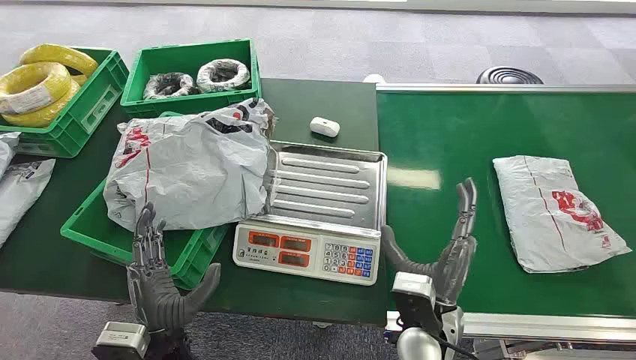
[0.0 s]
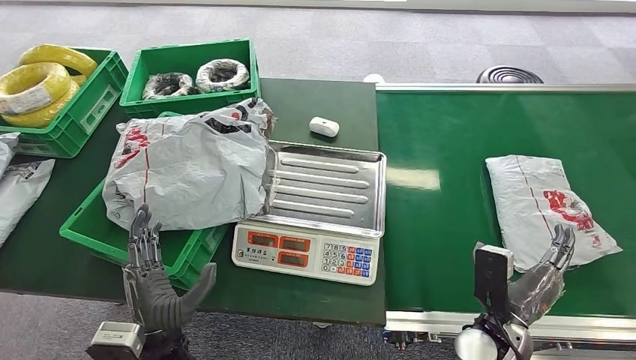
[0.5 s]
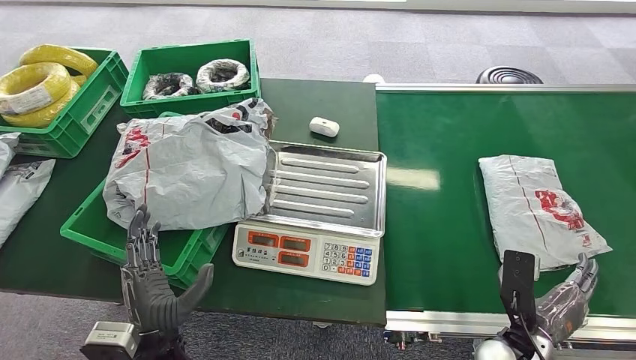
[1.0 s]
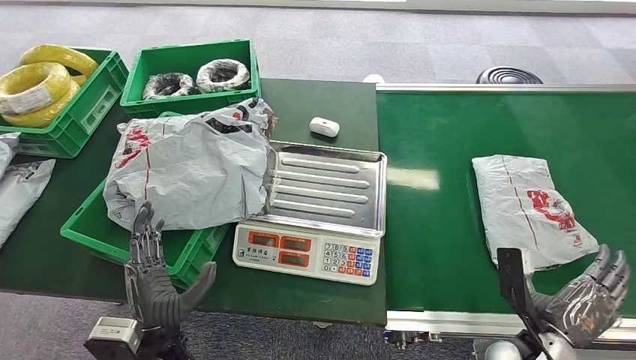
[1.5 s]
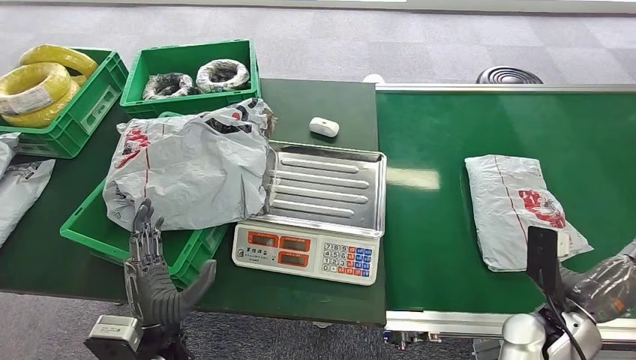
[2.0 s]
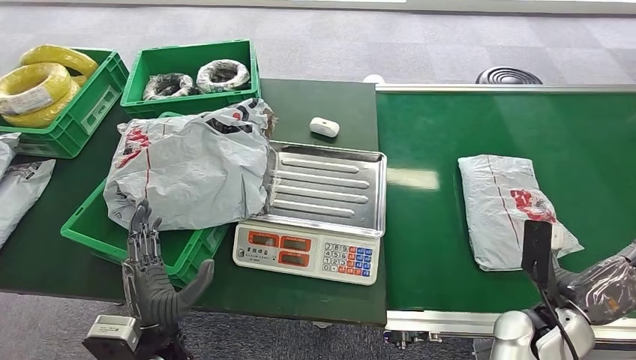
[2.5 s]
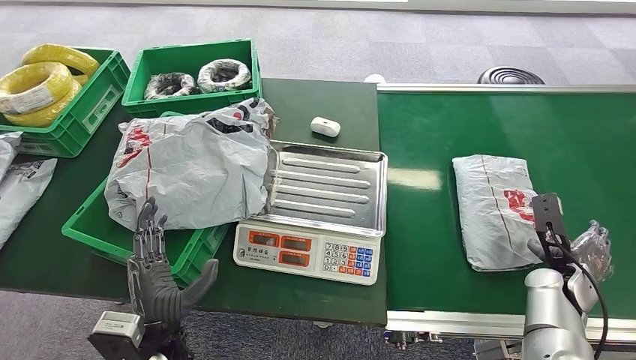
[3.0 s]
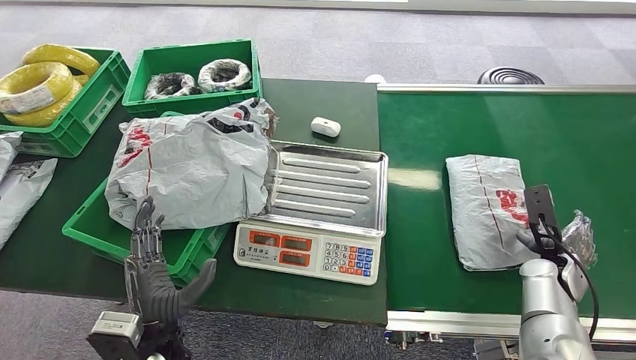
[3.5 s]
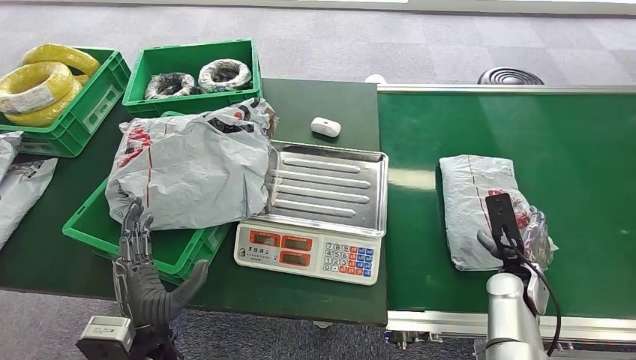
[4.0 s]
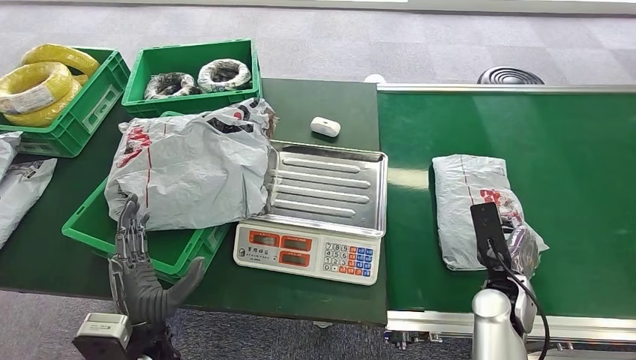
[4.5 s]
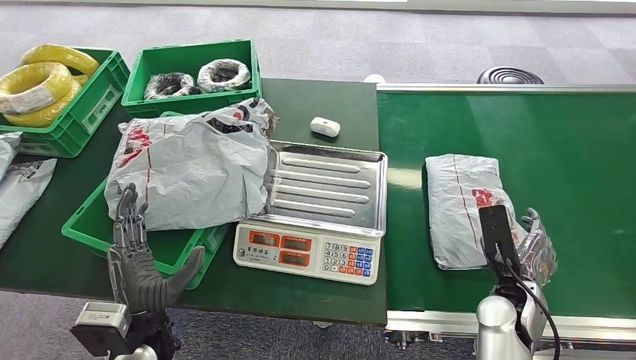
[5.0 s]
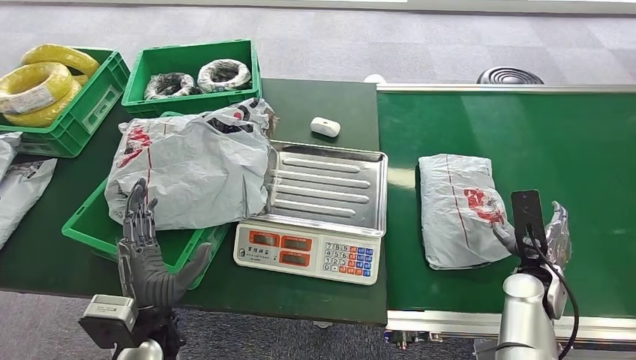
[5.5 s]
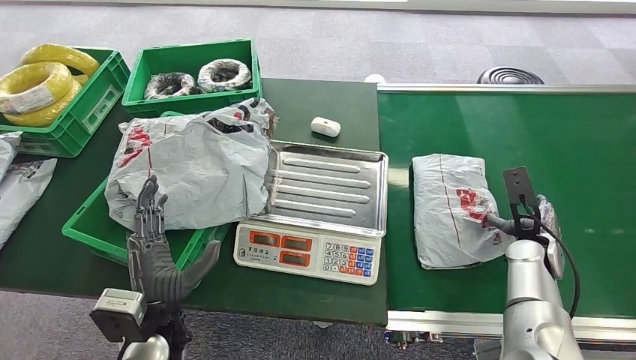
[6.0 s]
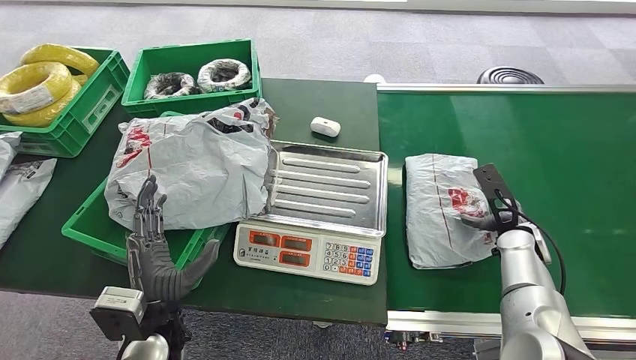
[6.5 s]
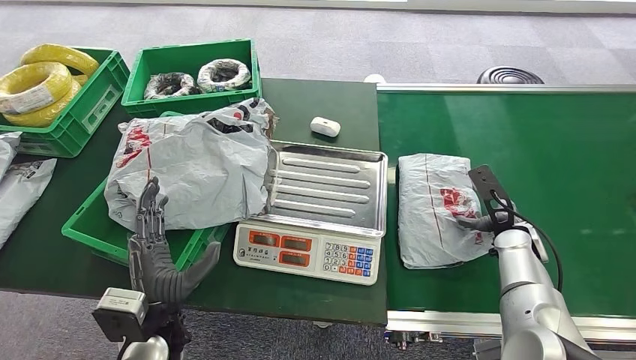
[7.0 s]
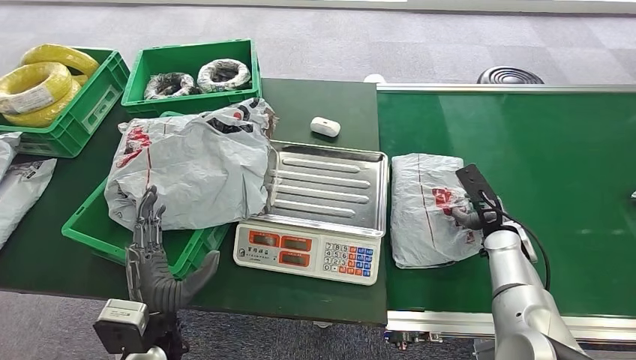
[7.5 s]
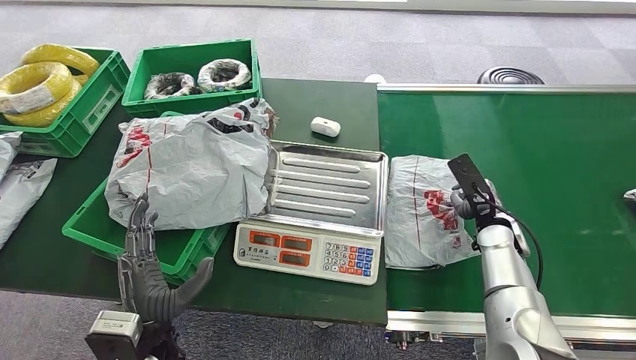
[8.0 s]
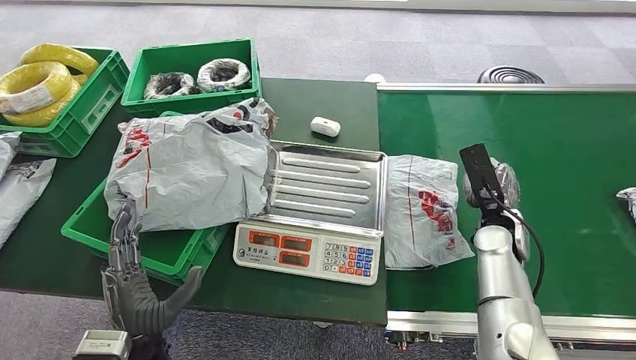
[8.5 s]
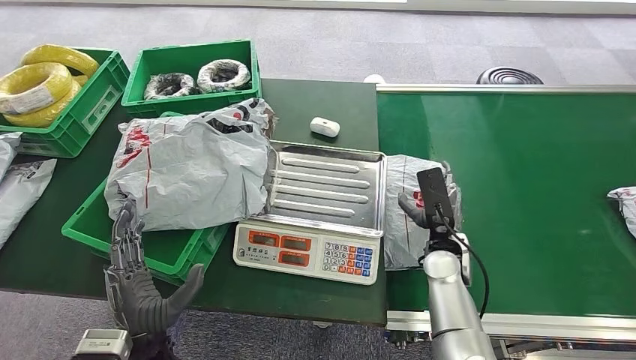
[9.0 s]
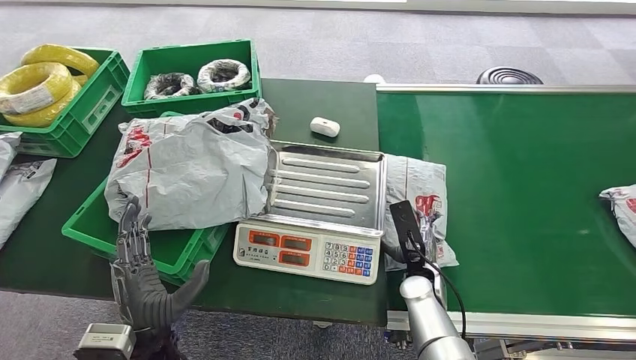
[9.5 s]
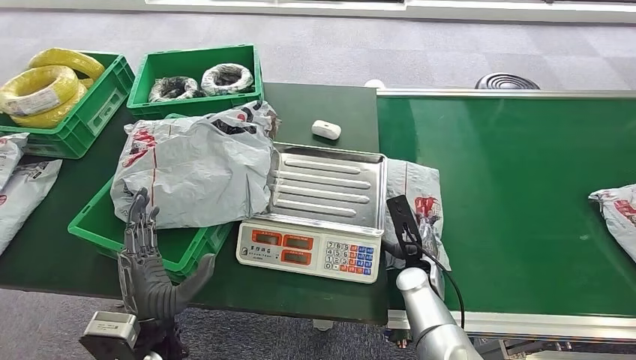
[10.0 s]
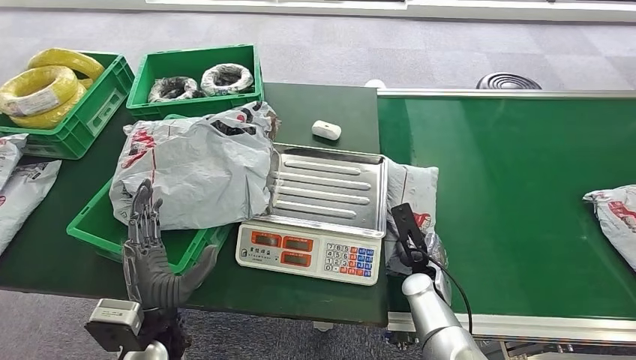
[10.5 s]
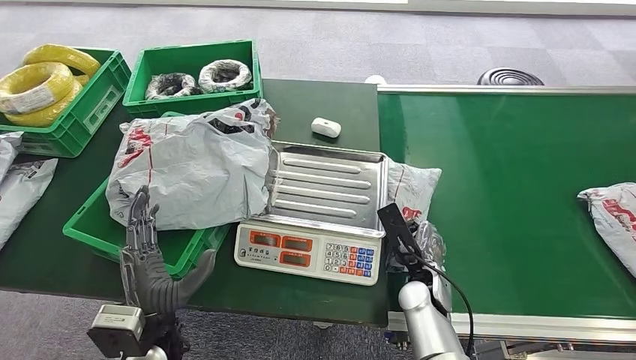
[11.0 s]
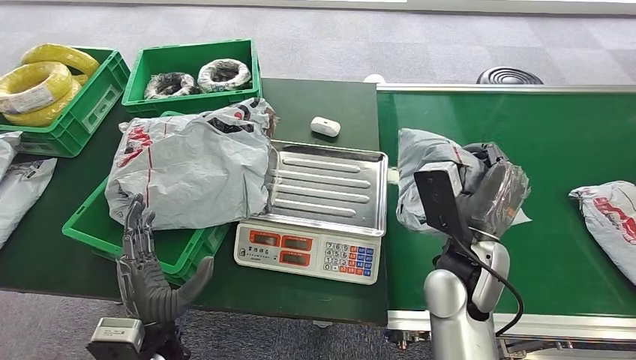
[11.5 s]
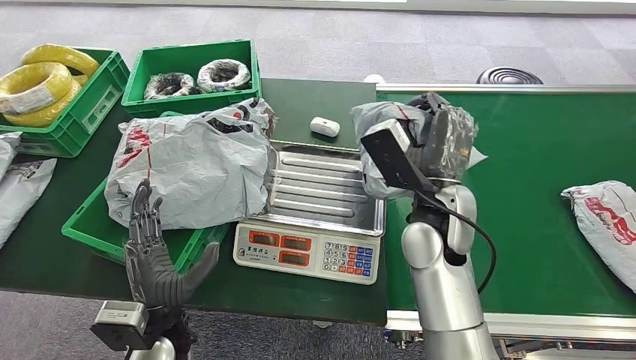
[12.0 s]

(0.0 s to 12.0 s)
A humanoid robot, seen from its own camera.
Step, 0.0 s - 11.5 s: Pick up the package from the conveyor belt.
2.0 s - 4.0 s: The right hand is displaced forward by about 10 cm, and travels to the right and back again, some 10 cm each way.
4.0 s - 6.0 s: The right hand ends up about 5 cm from where it was.
6.0 s - 8.0 s: The right hand goes approximately 5 cm to the left.

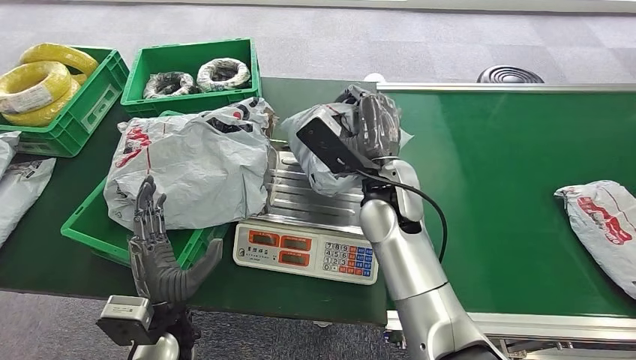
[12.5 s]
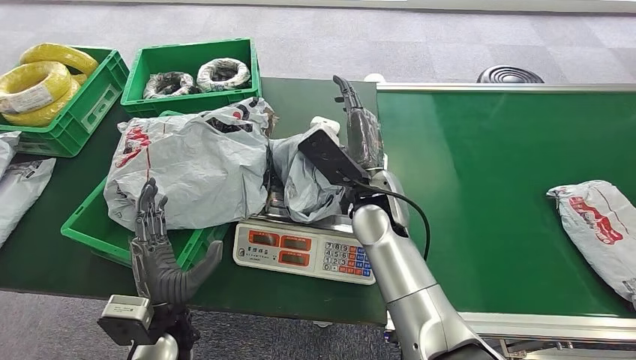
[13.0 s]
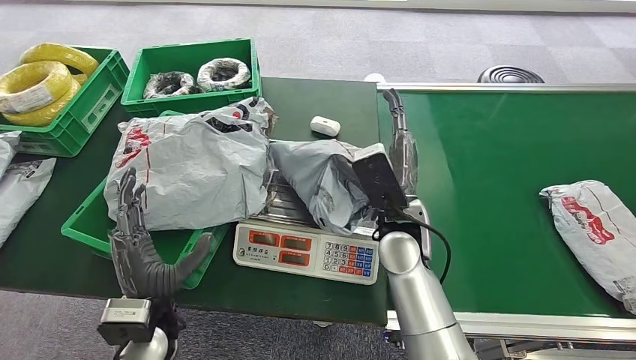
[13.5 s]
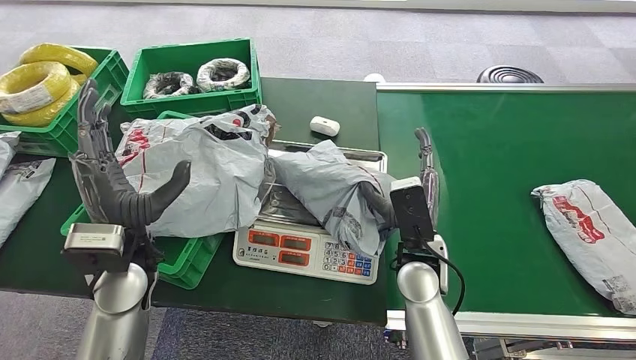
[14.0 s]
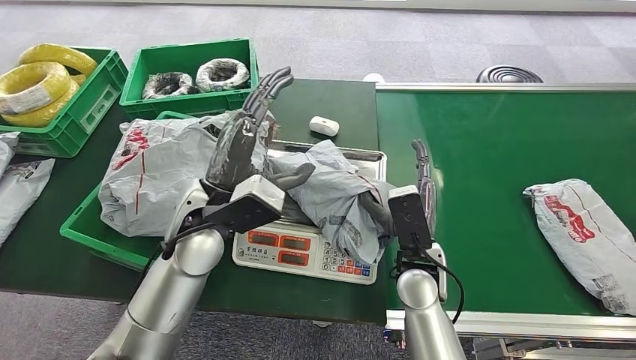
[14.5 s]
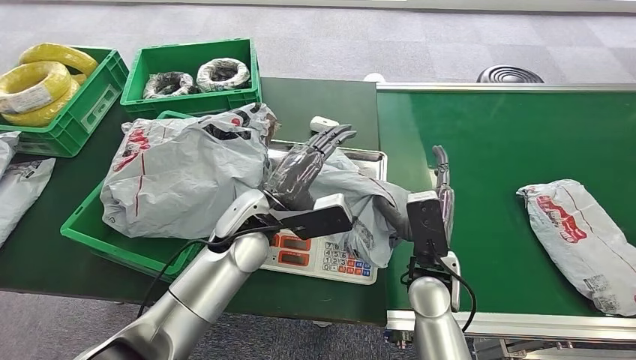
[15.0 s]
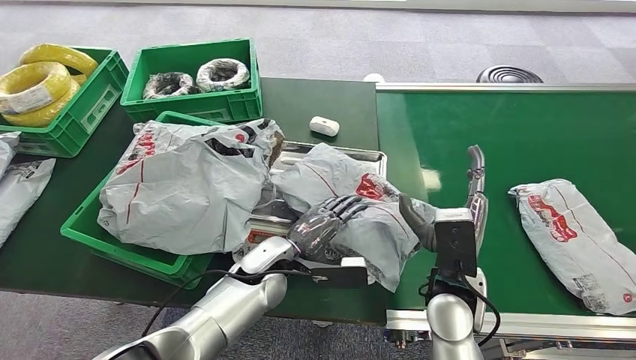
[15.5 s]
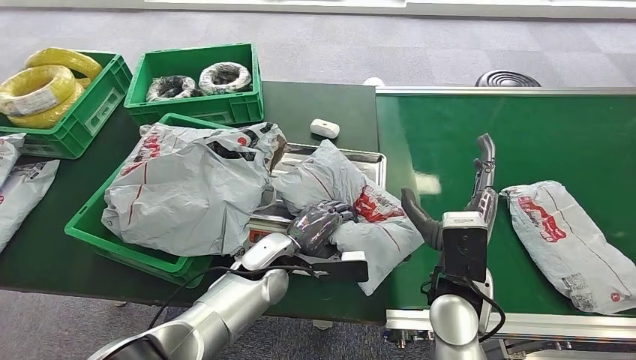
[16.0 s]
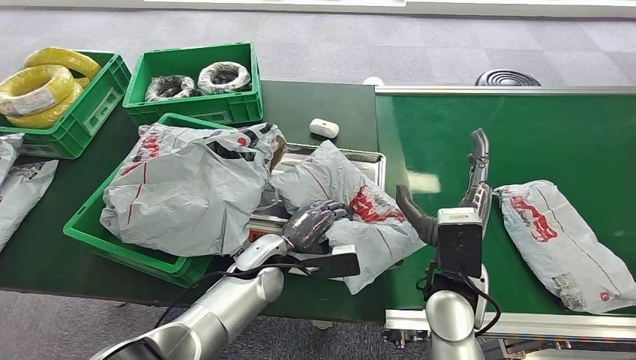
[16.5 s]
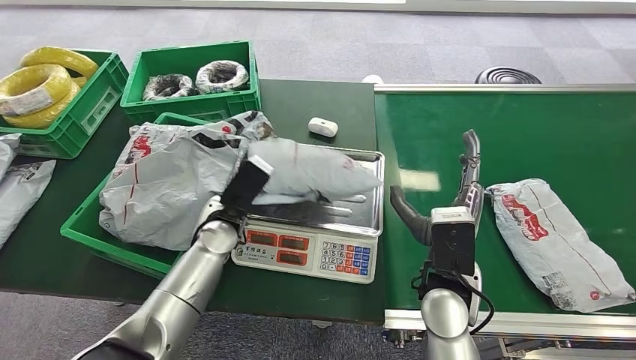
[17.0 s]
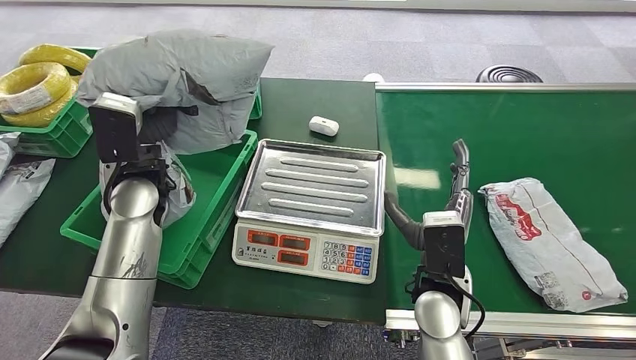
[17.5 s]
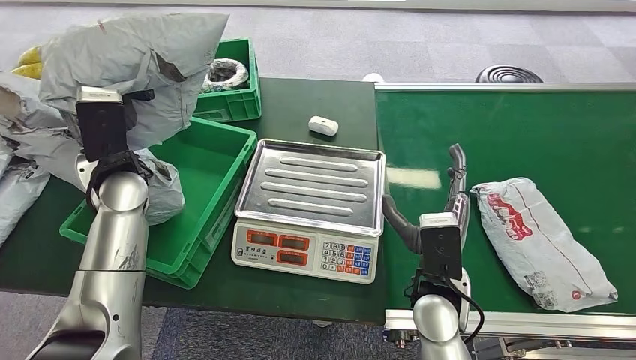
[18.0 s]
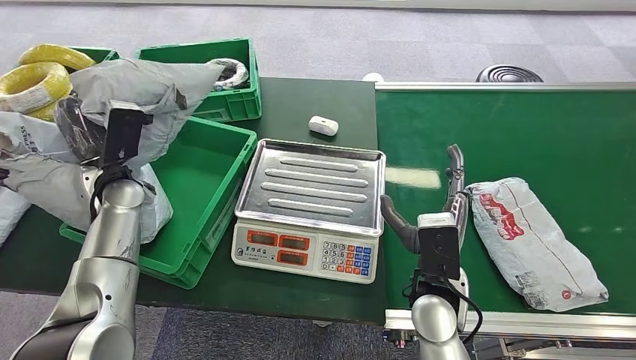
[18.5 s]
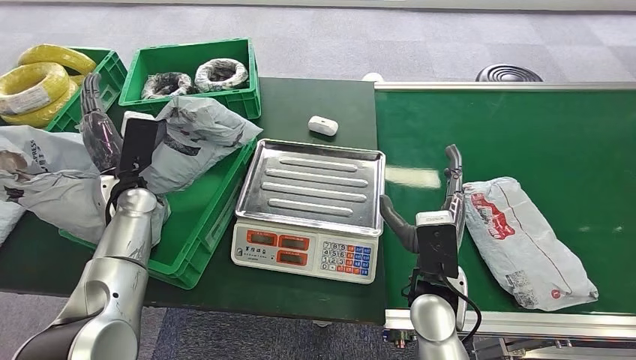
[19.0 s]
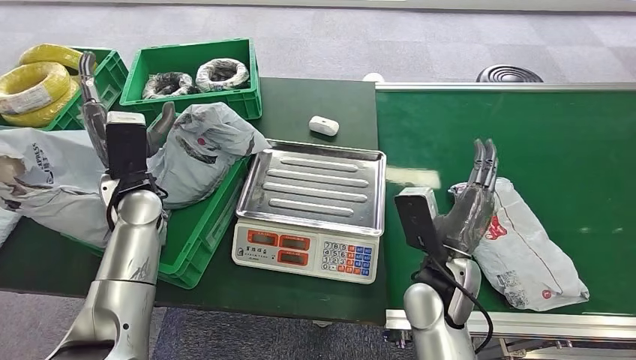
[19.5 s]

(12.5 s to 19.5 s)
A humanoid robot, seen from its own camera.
Step, 12.5 s - 14.0 s: Place the package onto the inbound machine.
Step, 14.5 s - 17.5 s: Pick up the package from the inbound machine.
Step, 18.0 s - 19.5 s: Place the package into the parcel locker.

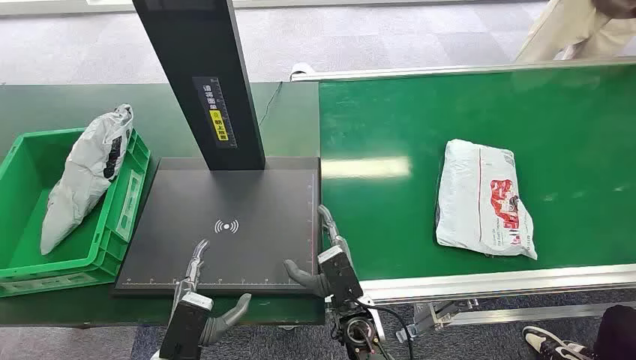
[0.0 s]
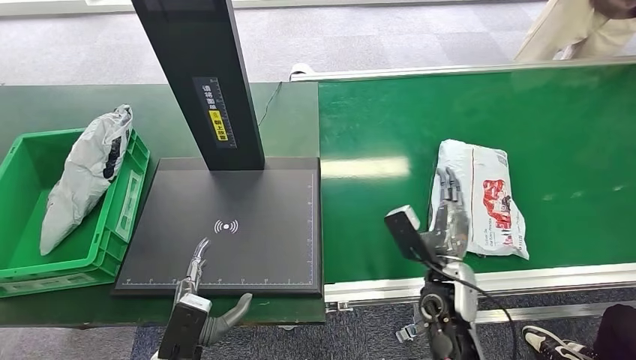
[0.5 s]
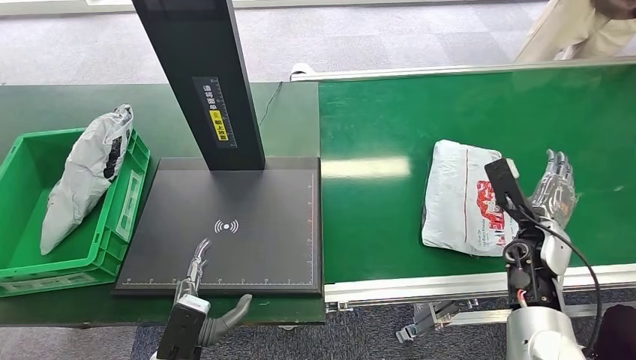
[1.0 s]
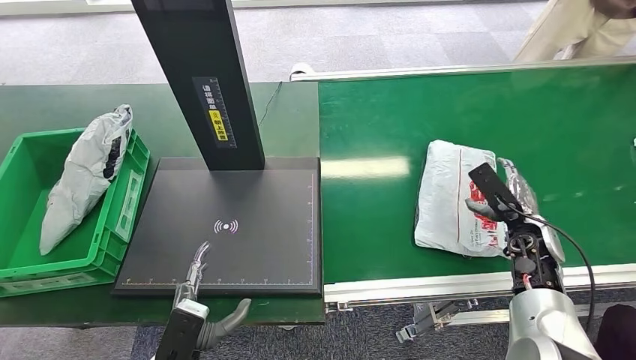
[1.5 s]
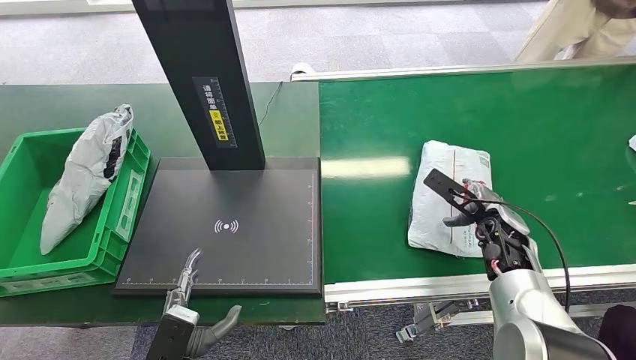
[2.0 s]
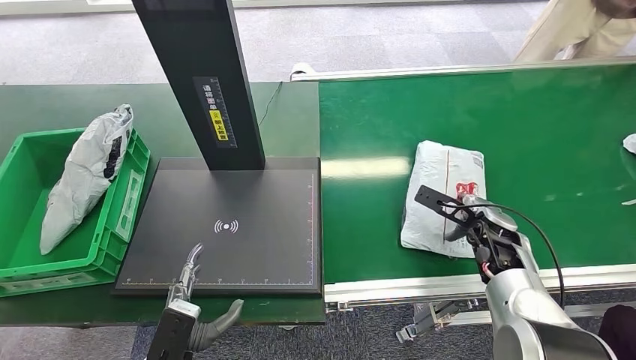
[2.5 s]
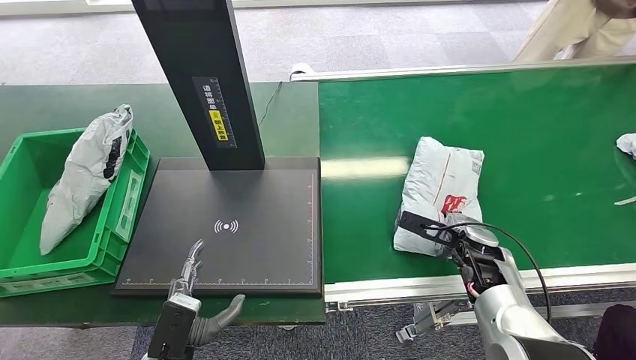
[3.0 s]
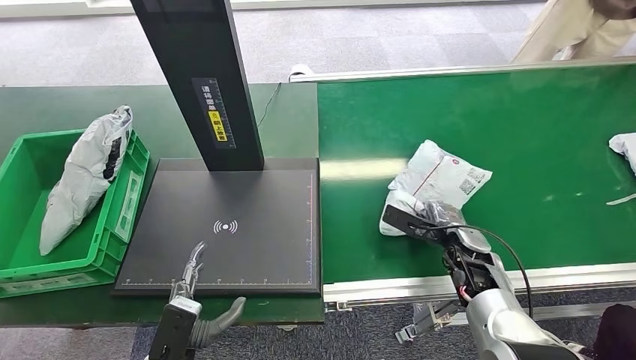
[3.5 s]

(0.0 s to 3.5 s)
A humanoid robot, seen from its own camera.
2.0 s - 3.5 s: The right hand ends up about 5 cm from where it was.
